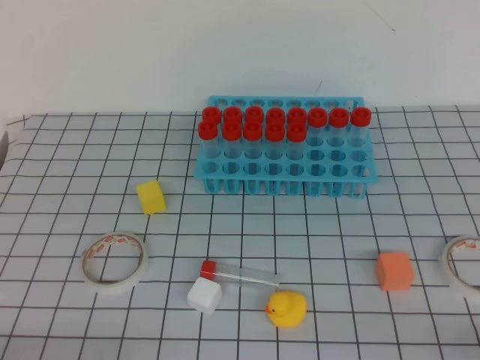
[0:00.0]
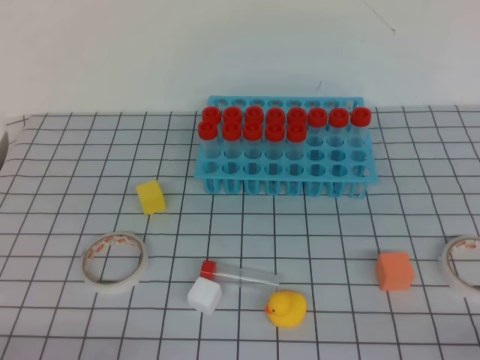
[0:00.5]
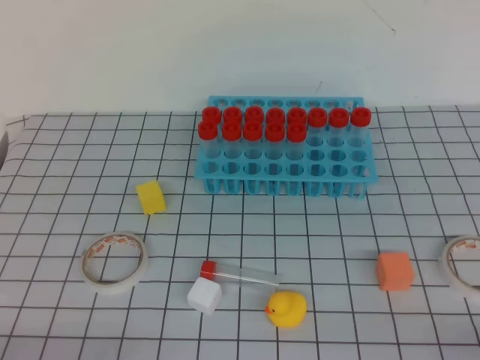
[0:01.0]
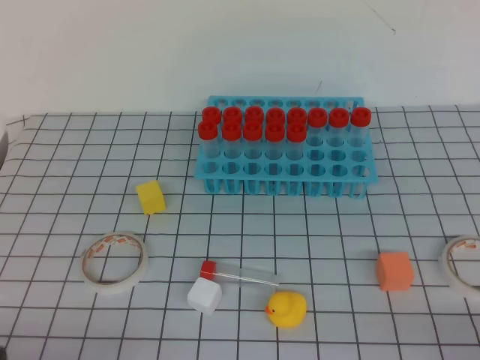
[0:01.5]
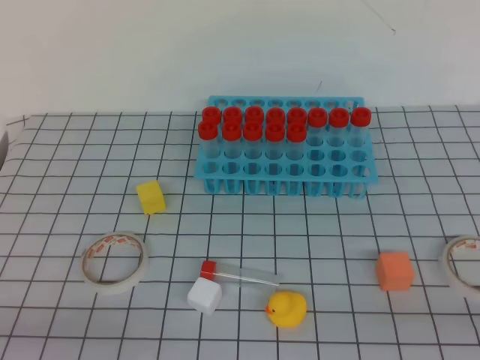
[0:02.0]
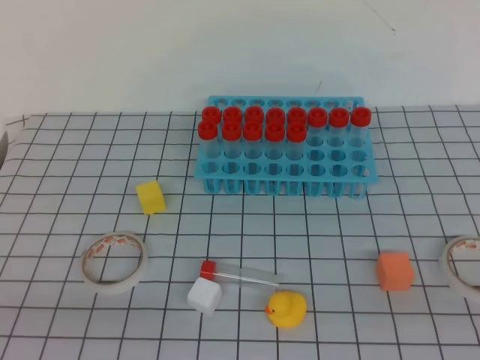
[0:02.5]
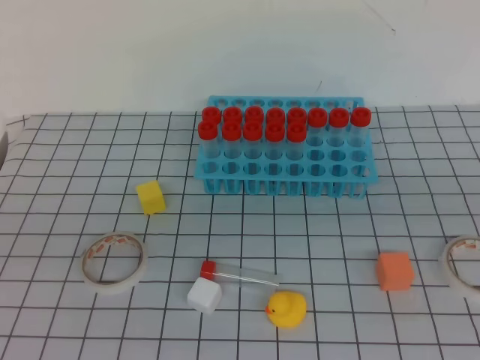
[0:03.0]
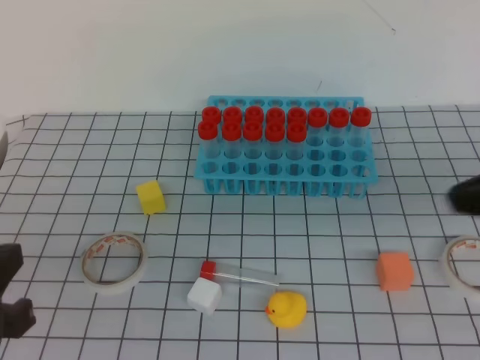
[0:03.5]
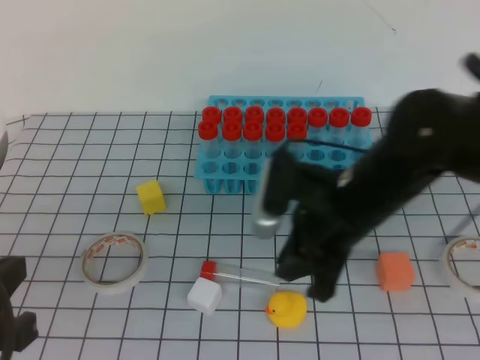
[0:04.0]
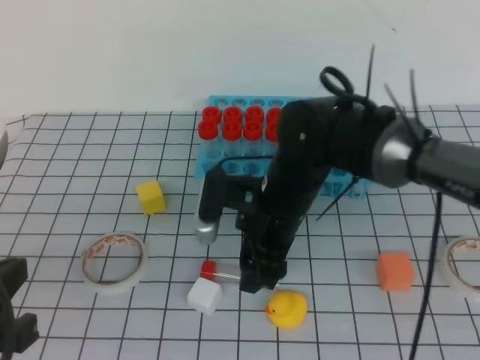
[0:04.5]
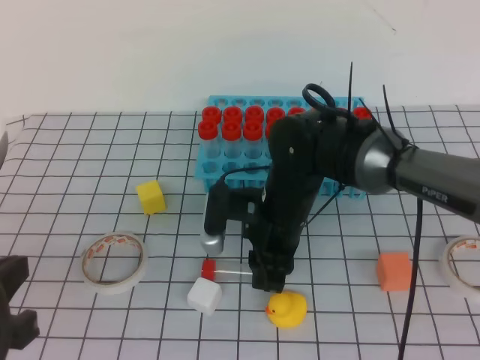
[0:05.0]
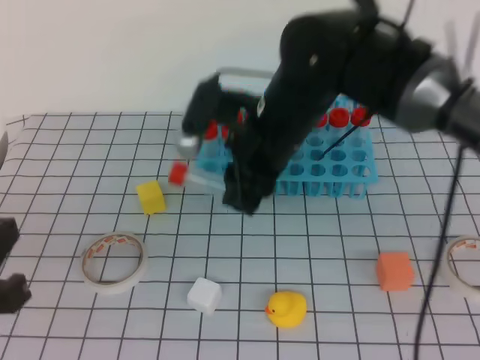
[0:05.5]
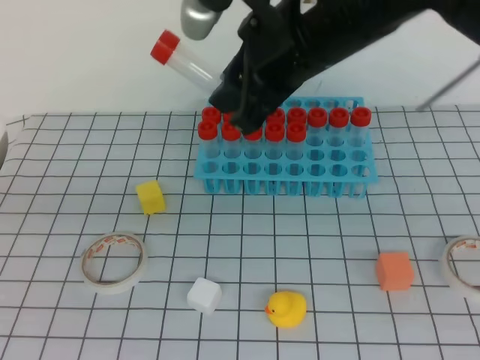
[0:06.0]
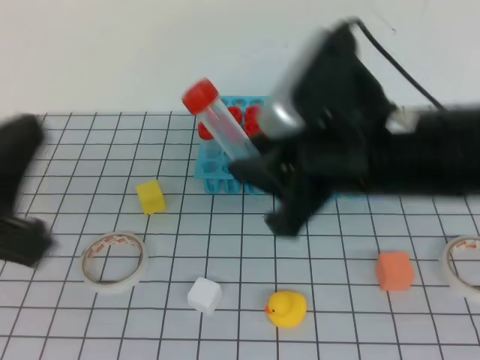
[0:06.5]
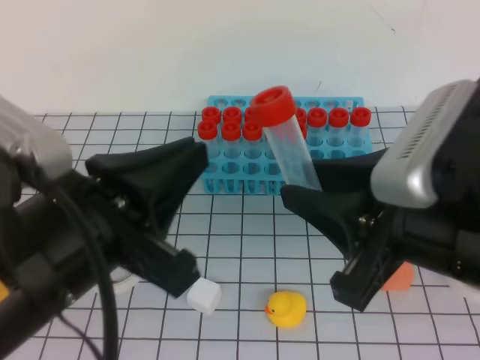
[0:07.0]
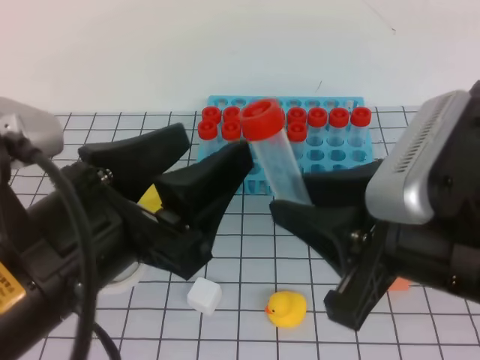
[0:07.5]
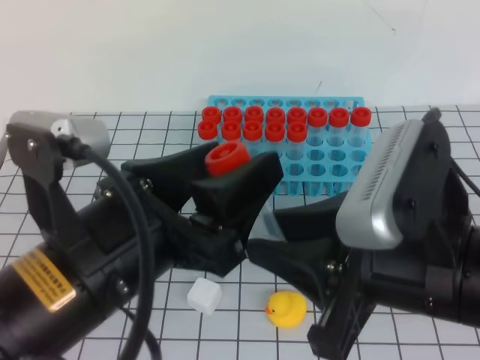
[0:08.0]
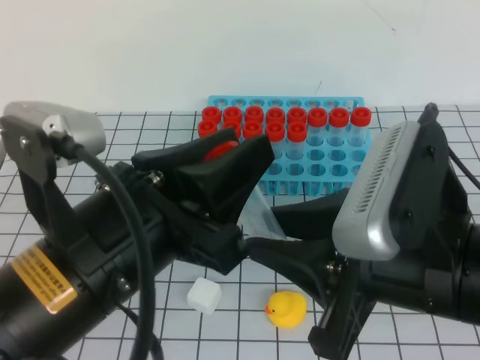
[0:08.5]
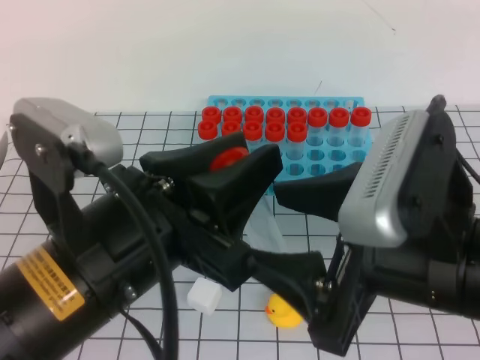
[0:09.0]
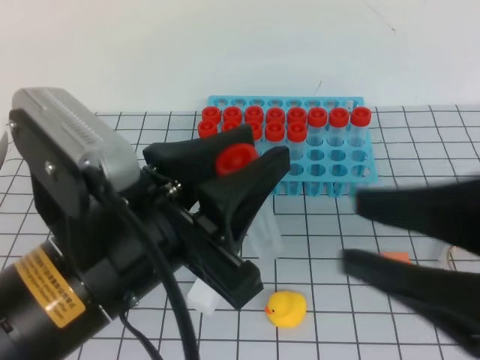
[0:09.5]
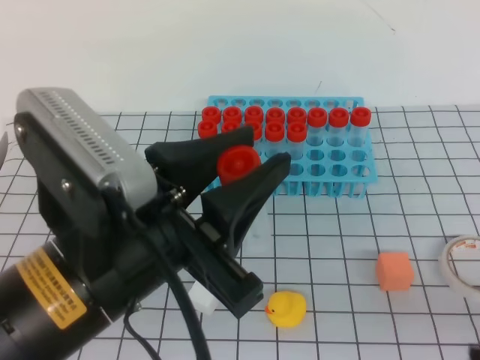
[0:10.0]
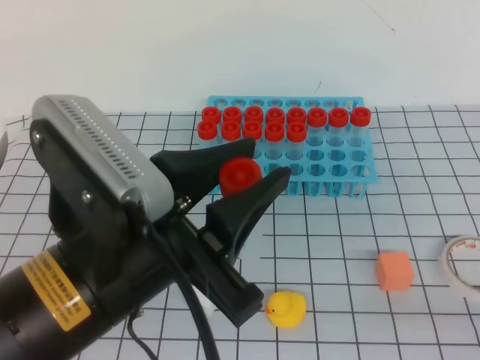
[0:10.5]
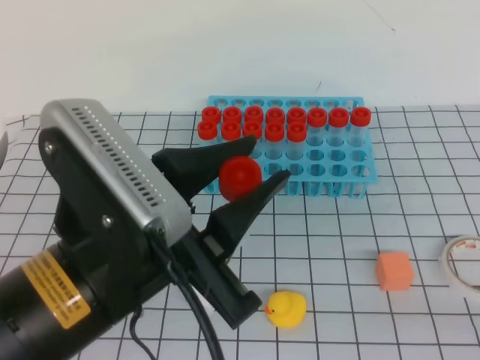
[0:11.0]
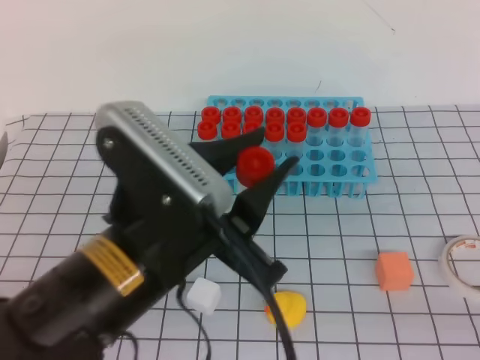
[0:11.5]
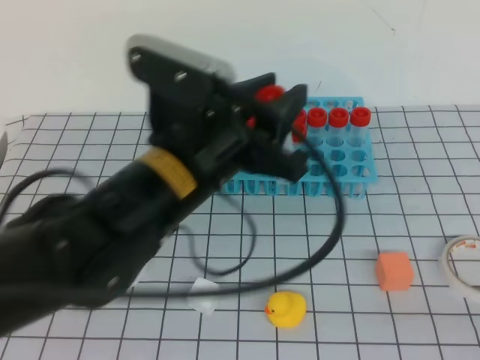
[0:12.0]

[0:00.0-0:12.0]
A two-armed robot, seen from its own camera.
0:02.0 to 0:04.0: The left gripper moves forward and upward, roughly 10 cm, while the right gripper moves forward and to the left, roughly 35 cm.
0:04.0 to 0:06.0: The left gripper shifts by about 5 cm. Meanwhile the right gripper shifts roughly 15 cm upward and to the left, and opens and closes again.
0:06.0 to 0:08.0: The left gripper shifts roughly 15 cm to the right, and opens its fingers, while the right gripper shifts some 20 cm backward, to the right and downward.
0:08.0 to 0:10.0: The right gripper goes approximately 15 cm to the right and backward, and closes its fingers. Meanwhile the left gripper closes up.
0:10.0 to 0:12.0: The left gripper moves forward, roughly 10 cm. The right gripper moves to the right, some 10 cm.

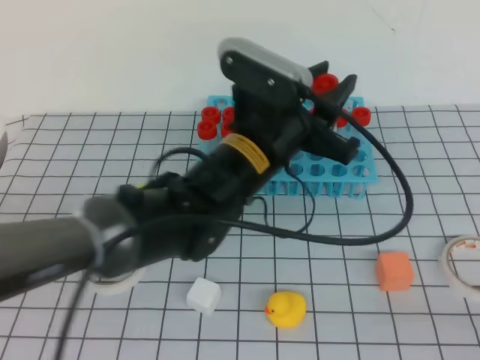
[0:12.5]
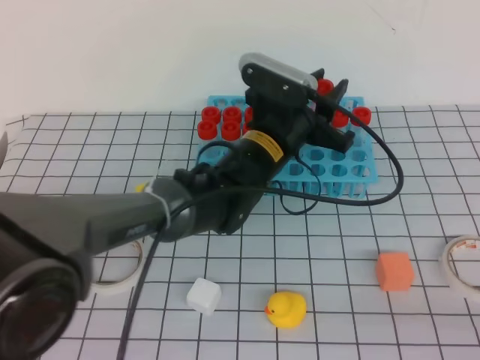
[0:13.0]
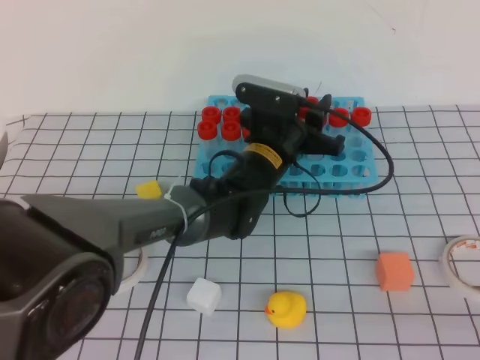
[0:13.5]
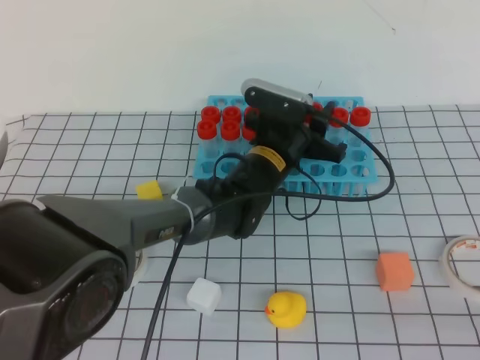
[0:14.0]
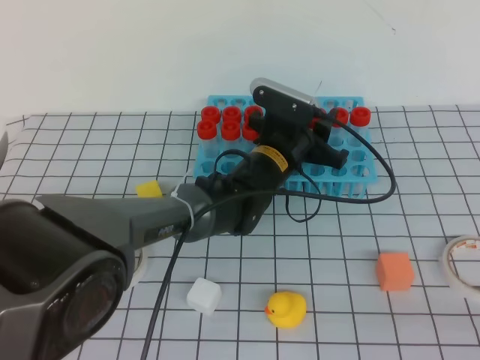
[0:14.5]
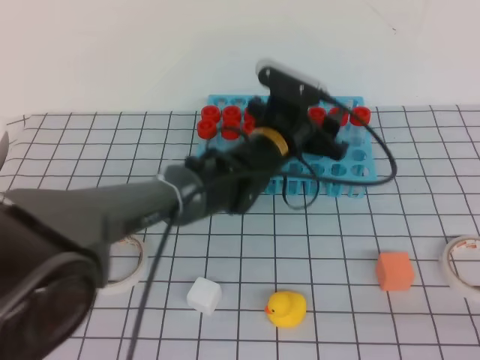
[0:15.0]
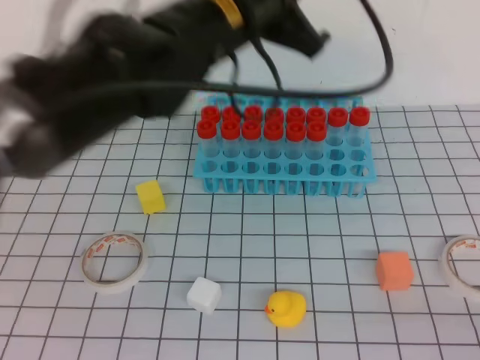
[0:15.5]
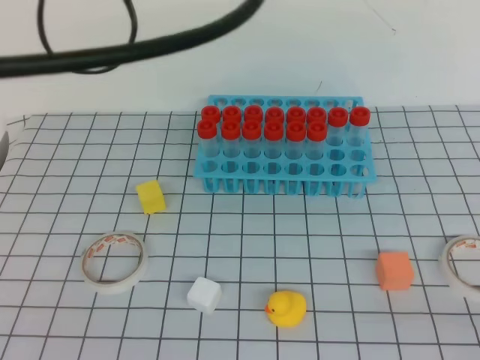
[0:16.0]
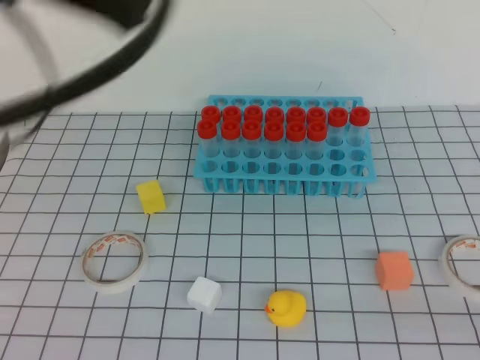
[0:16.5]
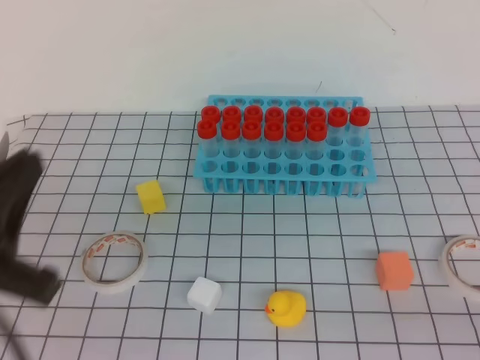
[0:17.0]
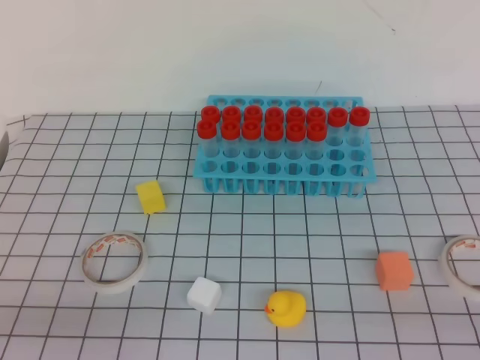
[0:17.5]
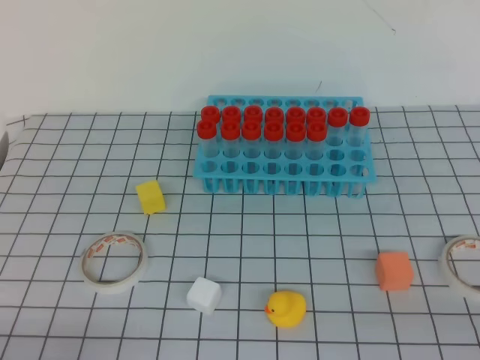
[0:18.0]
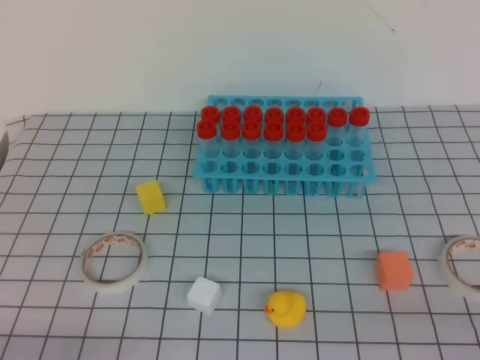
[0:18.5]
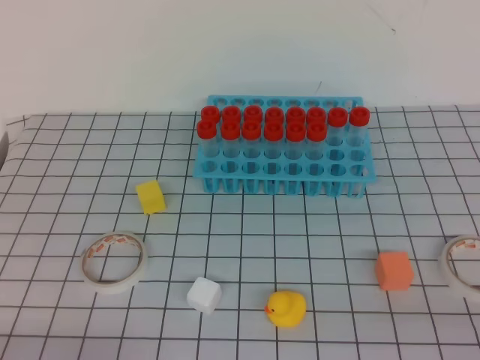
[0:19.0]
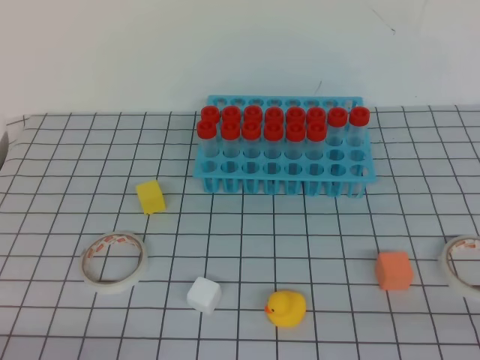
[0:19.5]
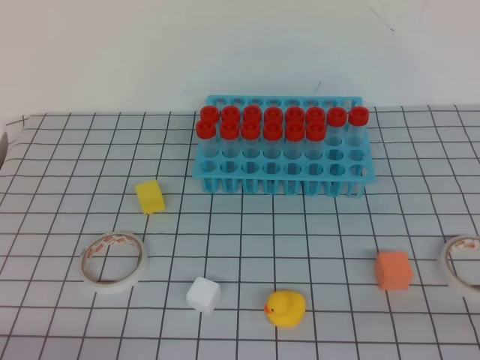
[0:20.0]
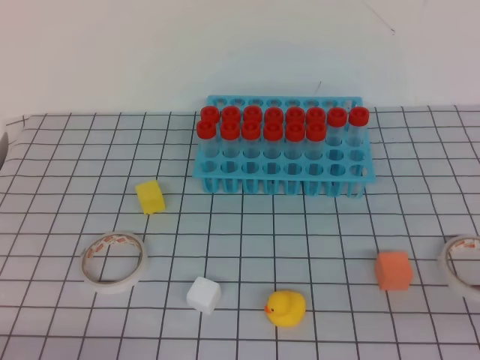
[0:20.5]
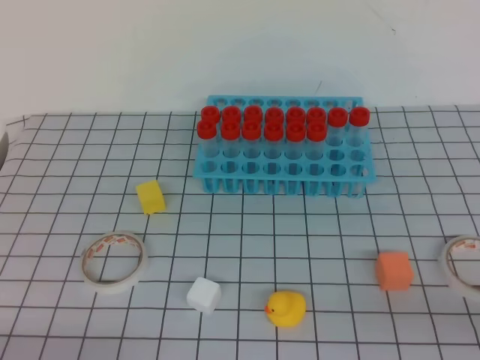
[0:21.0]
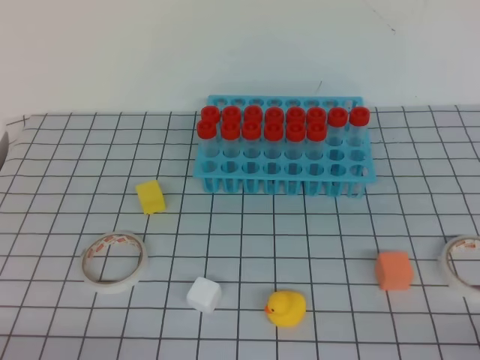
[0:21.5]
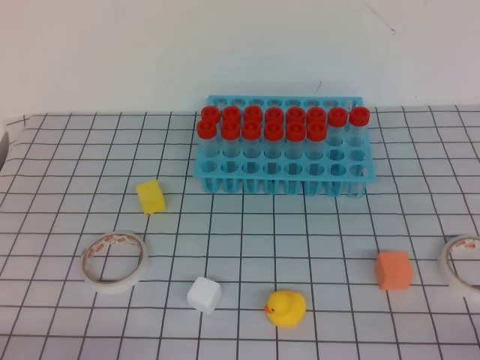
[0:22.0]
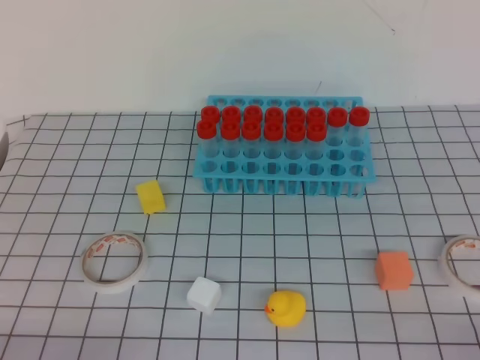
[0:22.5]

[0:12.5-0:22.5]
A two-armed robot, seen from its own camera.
0:12.5 to 0:14.5: The left gripper moves downward and forward, about 15 cm.
0:14.5 to 0:16.5: The left gripper heads upward, backward and to the left, covering some 40 cm, and closes its fingers.
0:16.5 to 0:18.5: The left gripper heads downward and backward, covering about 35 cm.
